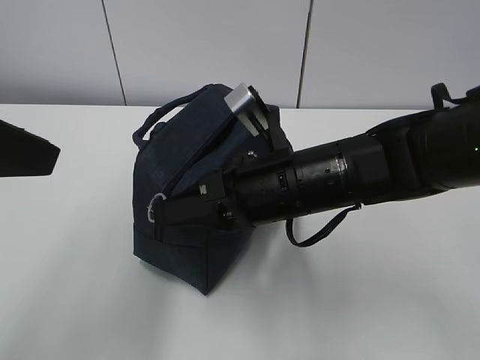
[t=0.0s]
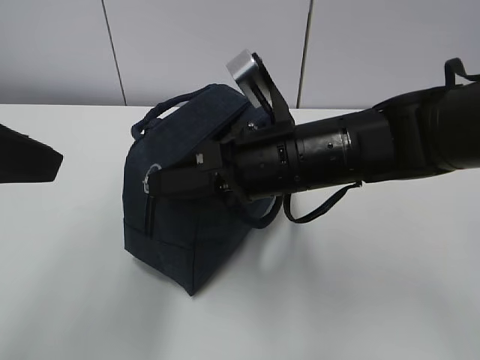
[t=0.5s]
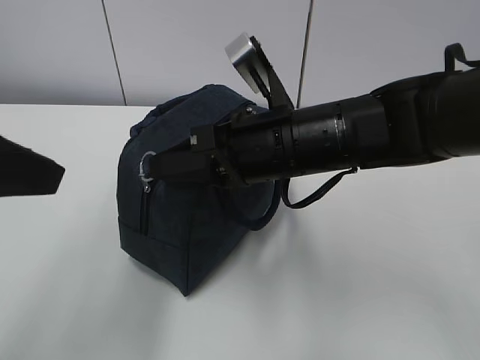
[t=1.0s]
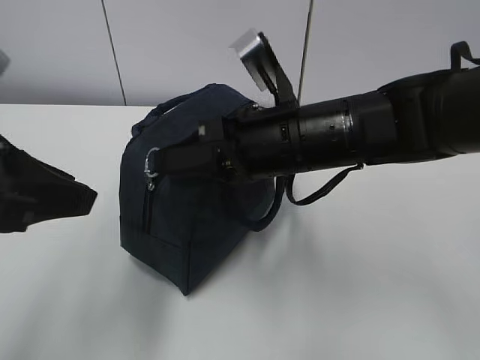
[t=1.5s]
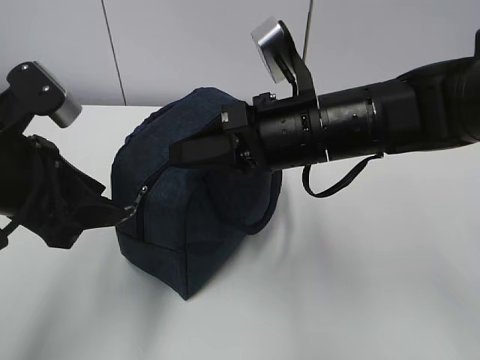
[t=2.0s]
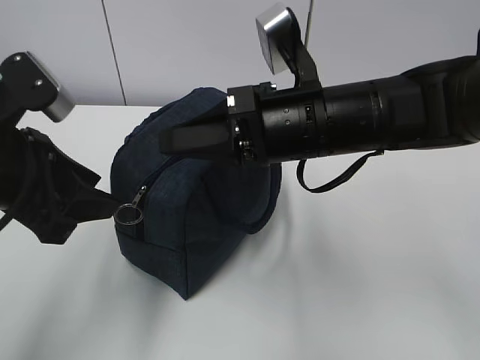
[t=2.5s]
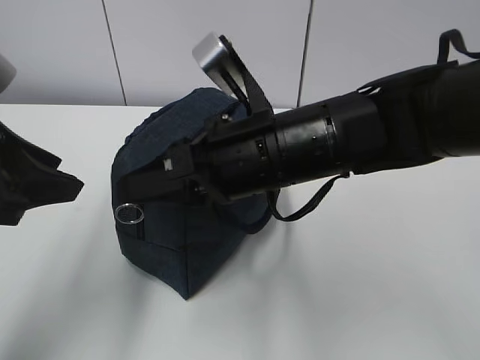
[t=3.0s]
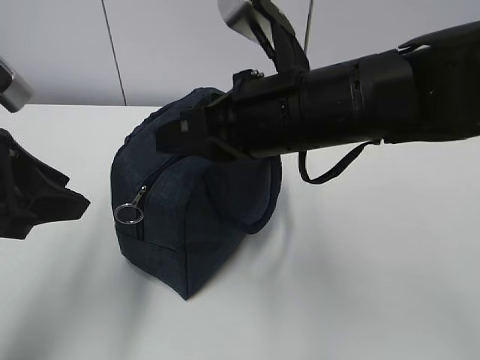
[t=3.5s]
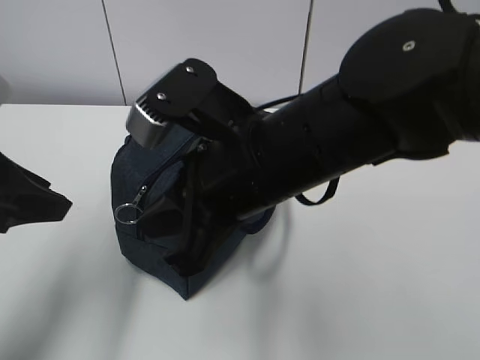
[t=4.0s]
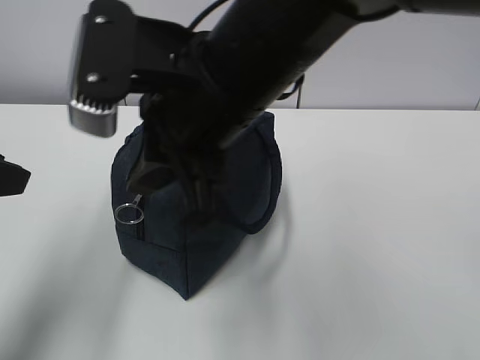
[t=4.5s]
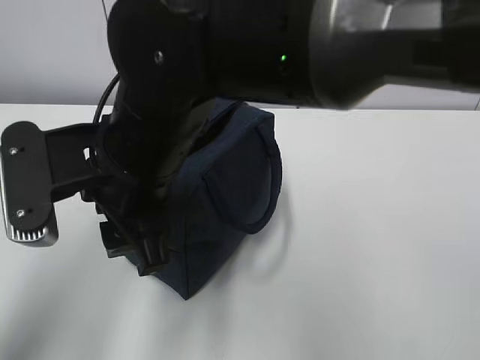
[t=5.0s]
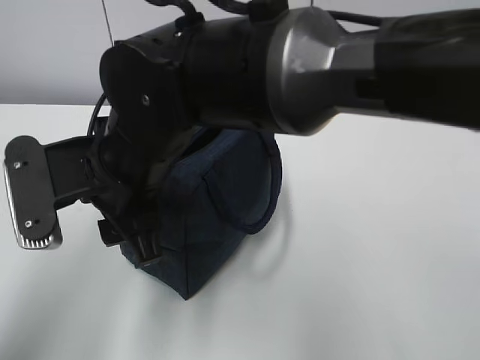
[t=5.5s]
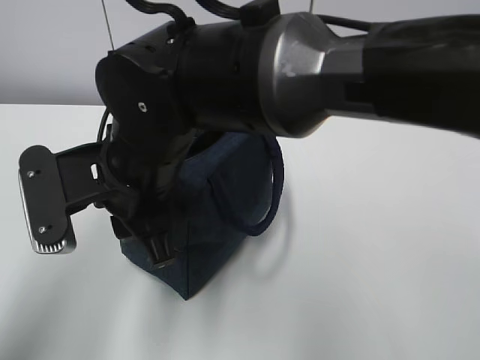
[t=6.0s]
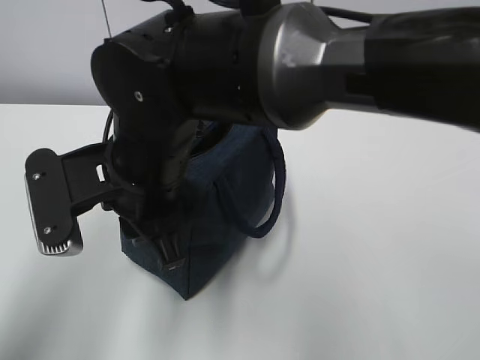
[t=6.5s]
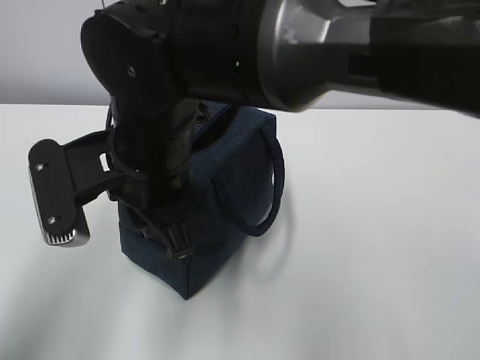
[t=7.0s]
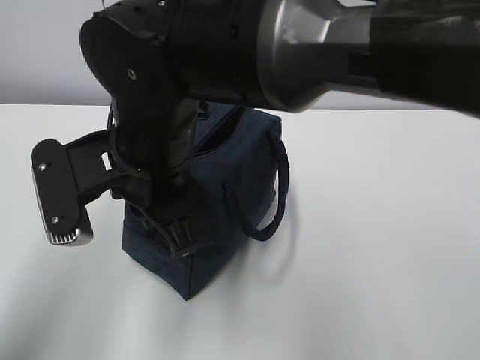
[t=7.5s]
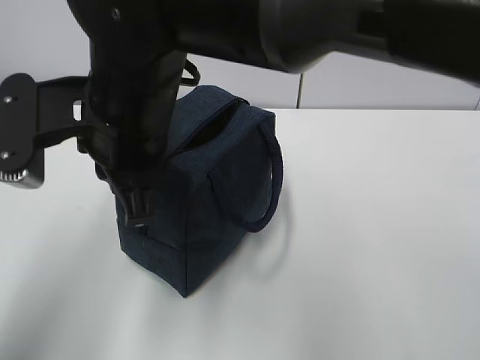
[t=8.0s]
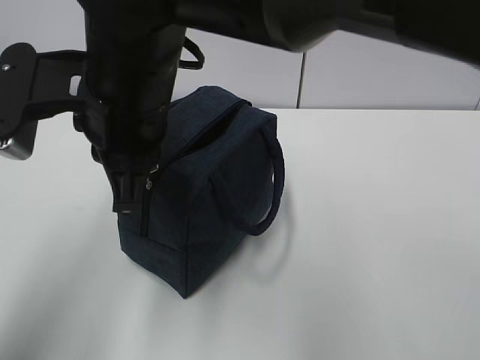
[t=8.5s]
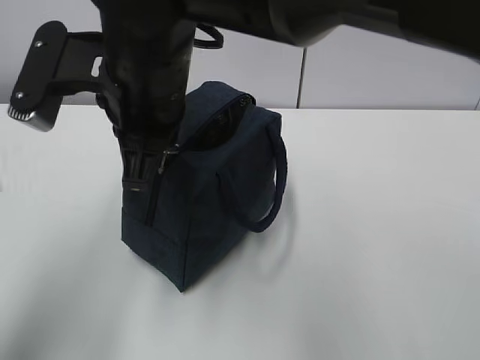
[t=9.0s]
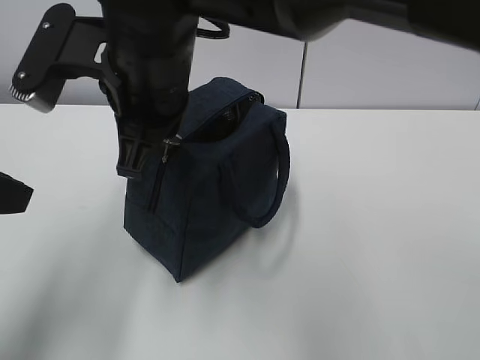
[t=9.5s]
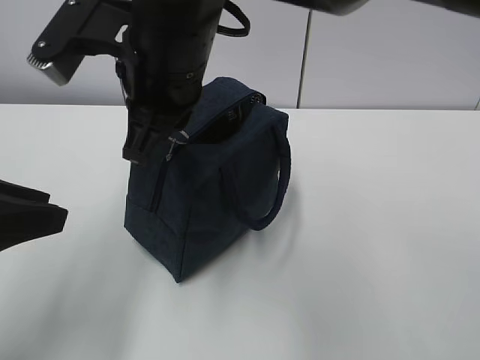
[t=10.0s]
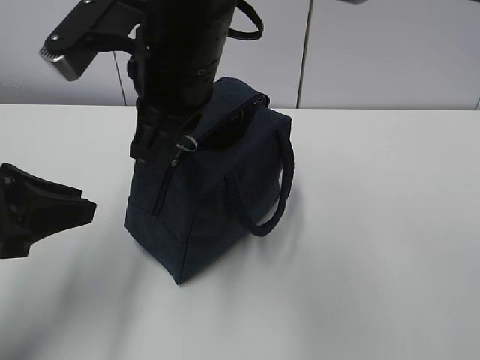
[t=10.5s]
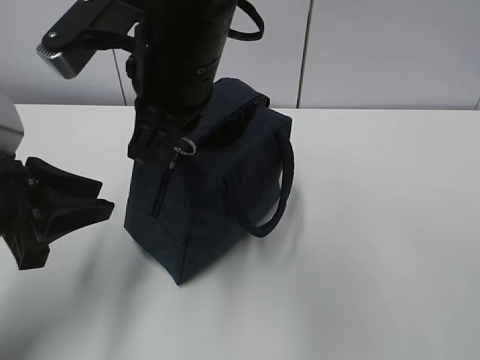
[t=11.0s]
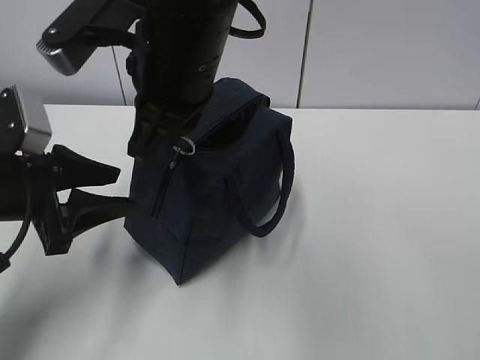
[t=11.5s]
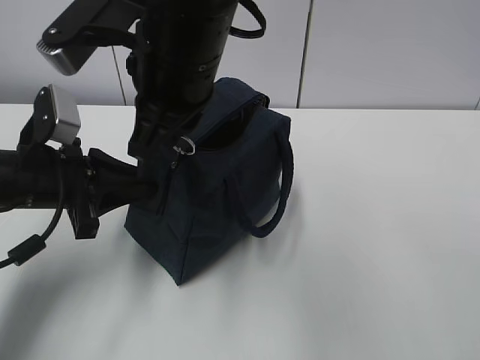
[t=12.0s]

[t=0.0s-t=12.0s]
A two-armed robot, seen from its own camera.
Step, t=0.0s to t=5.5s: Grab the lunch bag with your left hand.
t=0.0s to t=2.0s: The left gripper shifts roughly 10 cm downward and forward, while the right gripper moves about 5 cm.
t=2.0s to t=4.0s: The left gripper shifts by some 5 cm. The right gripper shifts some 10 cm backward and to the left.
t=4.0s to t=6.0s: The left gripper shifts approximately 10 cm backward and upward. The right gripper goes roughly 10 cm to the left, and opens.
t=6.0s to t=8.0s: The right gripper heads upward, covering about 5 cm, and closes.
t=8.0s to t=10.0s: The right gripper ends up about 5 cm from where it was; the left gripper moves downward, some 5 cm.
t=10.0s to t=12.0s: The left gripper heads forward and downward, covering roughly 15 cm, and closes its fingers.

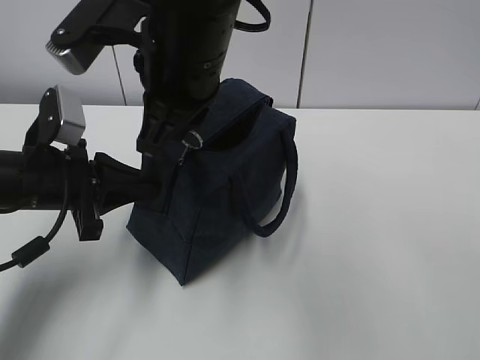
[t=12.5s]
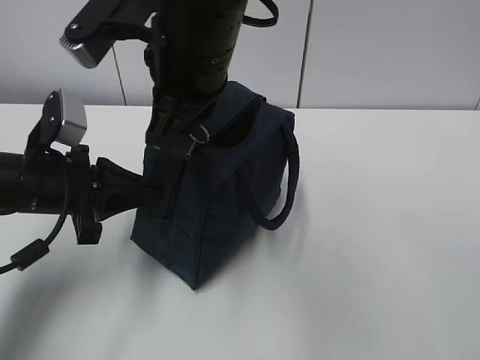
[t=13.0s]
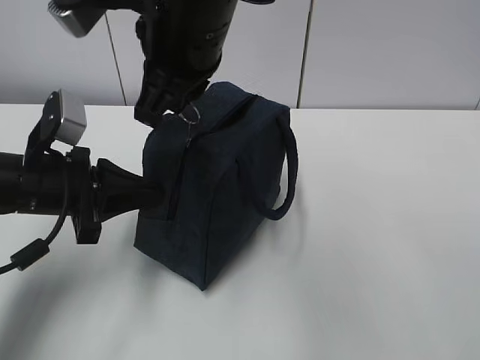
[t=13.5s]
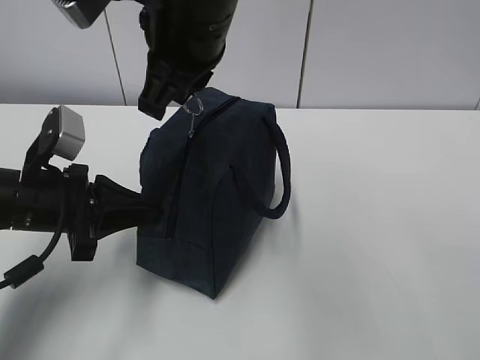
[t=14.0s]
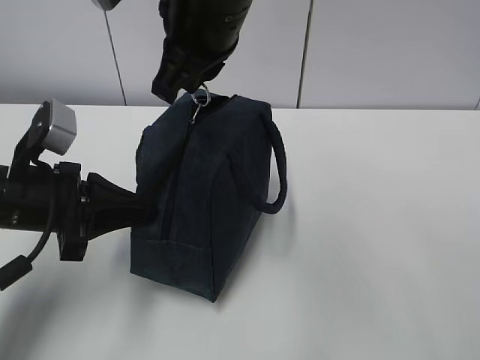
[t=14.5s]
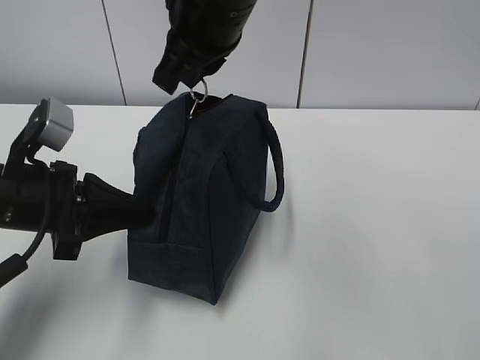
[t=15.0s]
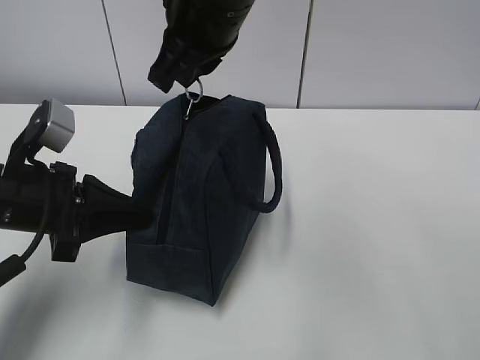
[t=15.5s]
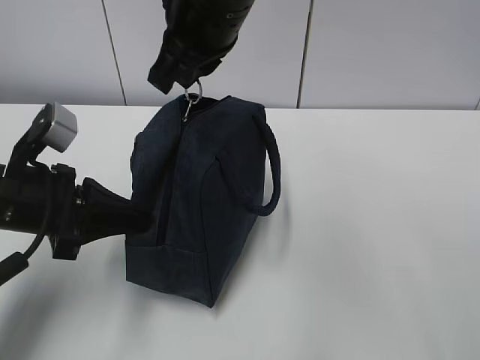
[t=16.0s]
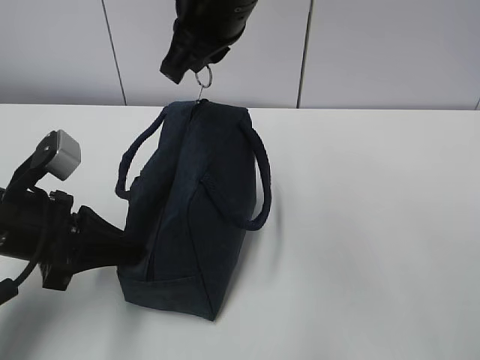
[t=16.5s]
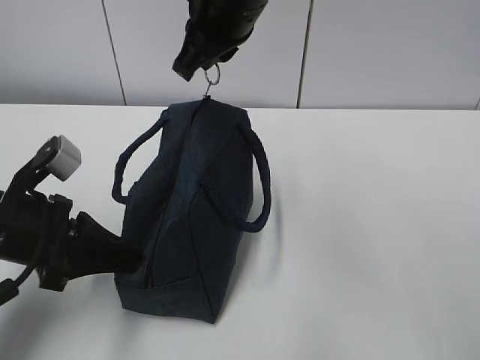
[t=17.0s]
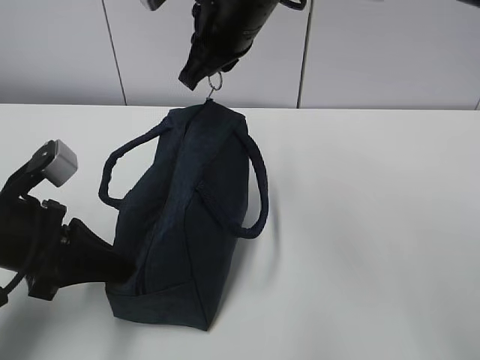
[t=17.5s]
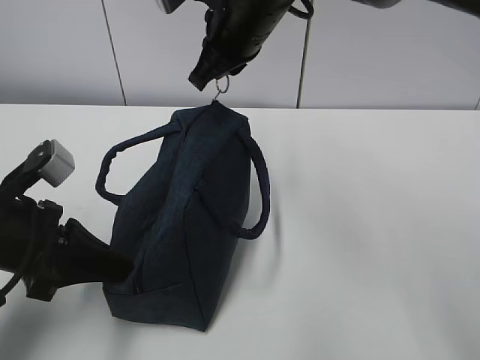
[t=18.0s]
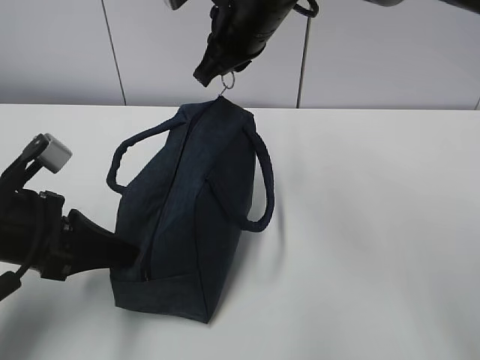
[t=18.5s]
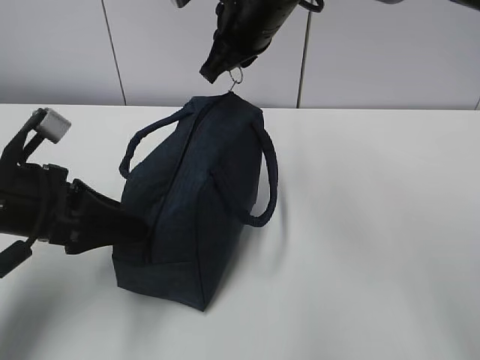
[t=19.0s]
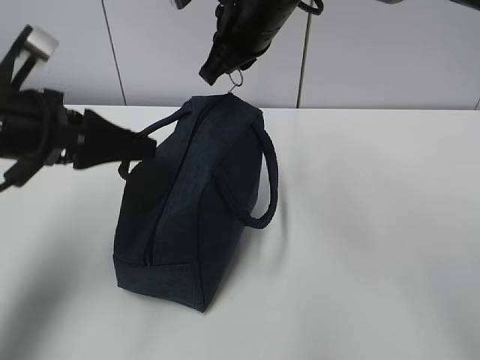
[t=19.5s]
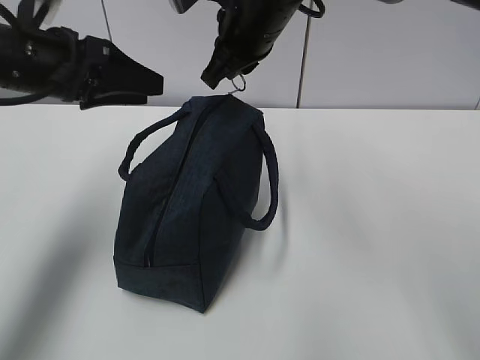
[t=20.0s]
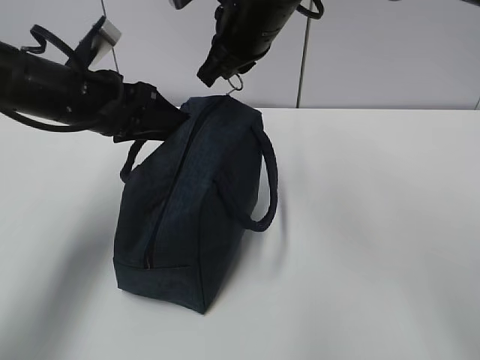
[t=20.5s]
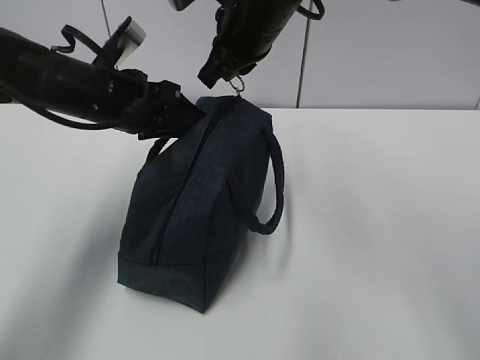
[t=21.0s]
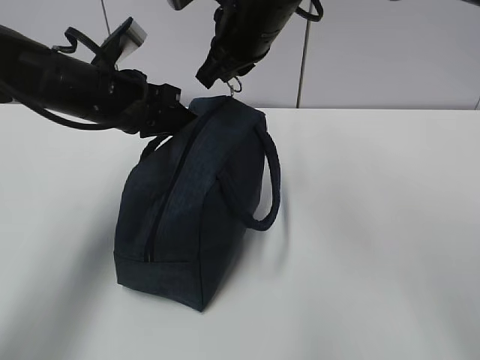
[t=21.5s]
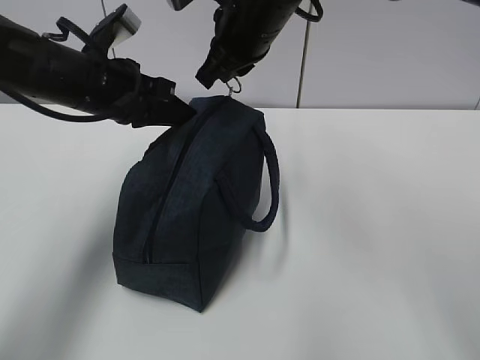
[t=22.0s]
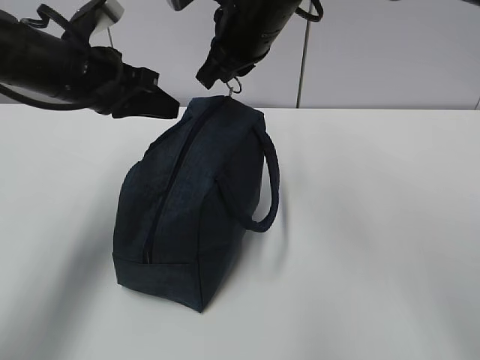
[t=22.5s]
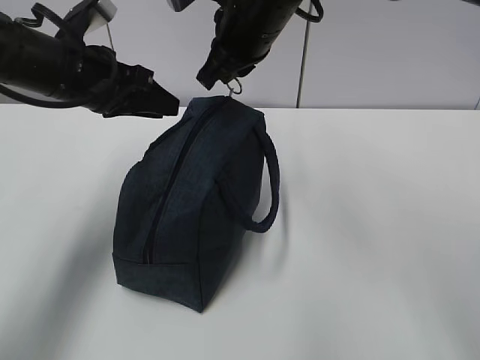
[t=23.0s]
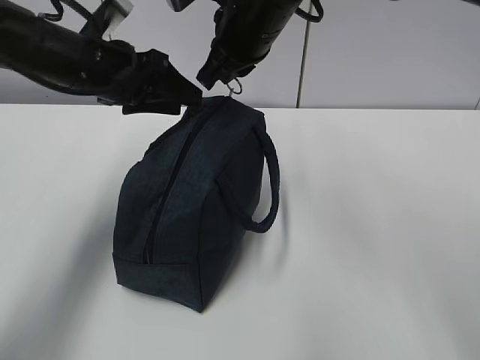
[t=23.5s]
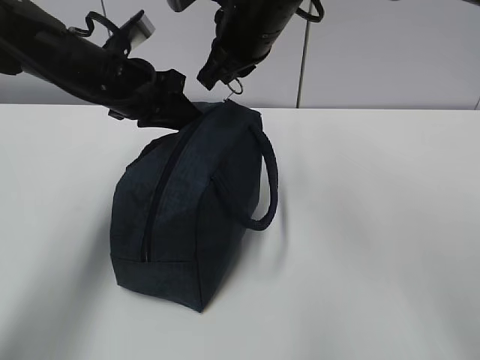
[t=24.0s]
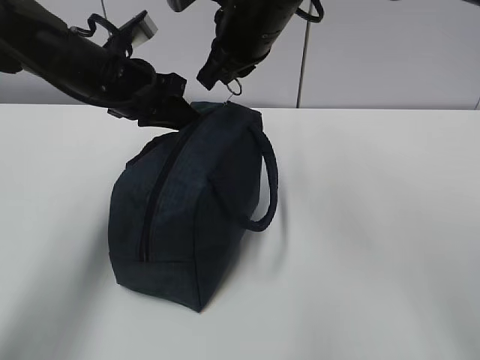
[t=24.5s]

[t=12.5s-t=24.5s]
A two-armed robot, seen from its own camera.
Step, t=13.5s to t=15.5s: Grab the lunch bag with your left hand.
t=12.5s to t=14.5s: The grippers stay close to where they were, moving slightly.
t=14.5s to t=16.5s: The grippers move only a little.
t=16.5s to t=18.5s: The right gripper is displaced forward by approximately 5 cm.
t=18.5s to t=20.5s: The left gripper moves forward and upward, approximately 15 cm, and opens up.
t=20.5s to t=22.5s: The left gripper closes its fingers.
t=22.5s to t=24.5s: The left gripper opens, then closes again.

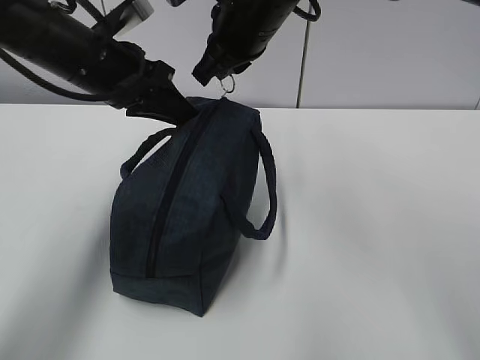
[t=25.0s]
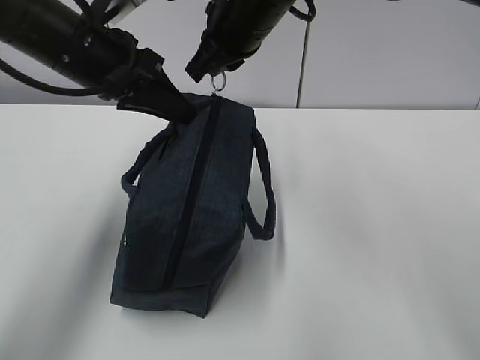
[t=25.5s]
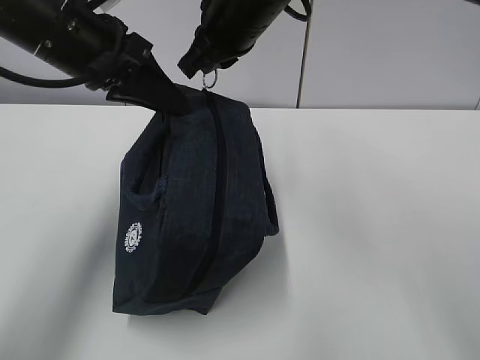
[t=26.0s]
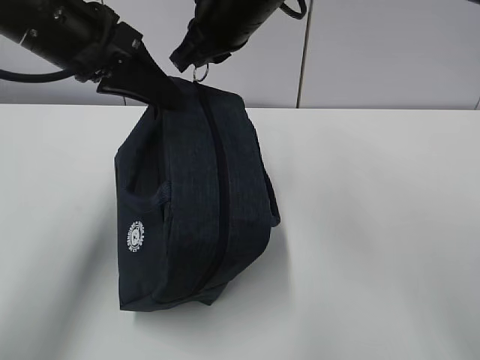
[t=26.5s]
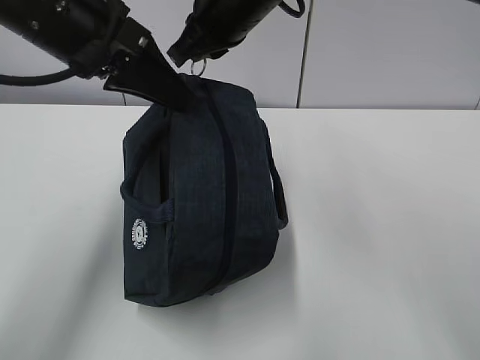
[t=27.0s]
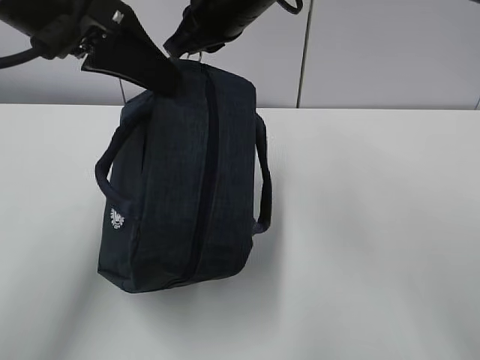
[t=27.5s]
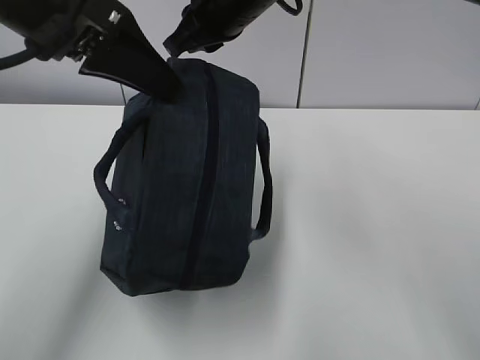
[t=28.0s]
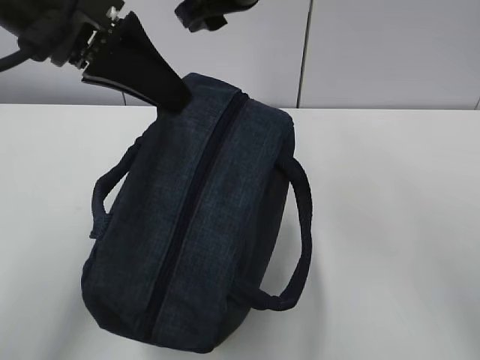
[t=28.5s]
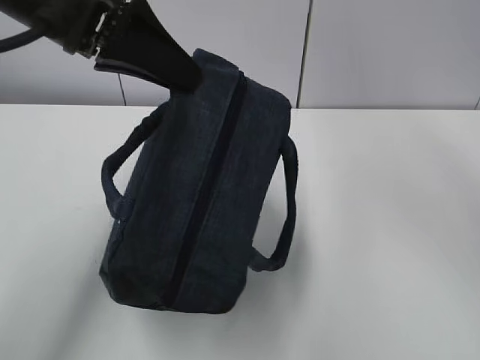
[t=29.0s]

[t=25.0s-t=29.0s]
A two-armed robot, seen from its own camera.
t=25.0s to t=27.0s: The left gripper heads upward and backward, covering roughly 10 cm.
t=27.0s to t=29.0s: The right gripper is displaced upward, to the right and backward by about 20 cm, and opens up.
